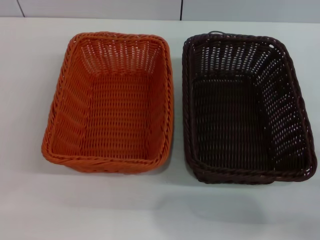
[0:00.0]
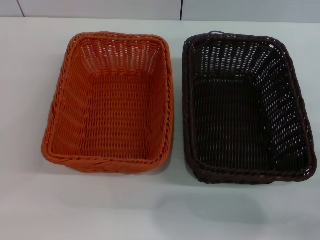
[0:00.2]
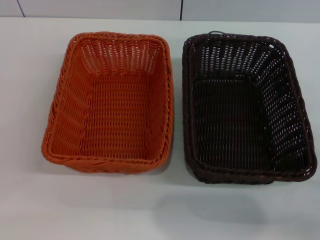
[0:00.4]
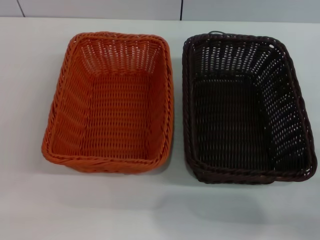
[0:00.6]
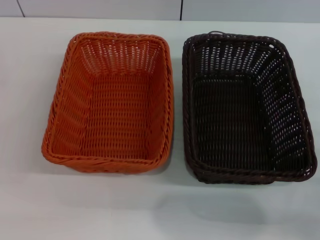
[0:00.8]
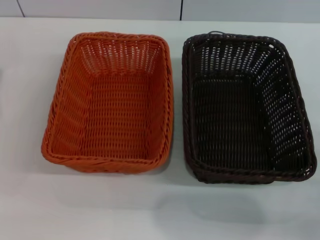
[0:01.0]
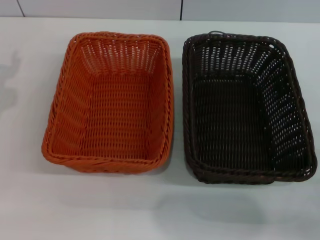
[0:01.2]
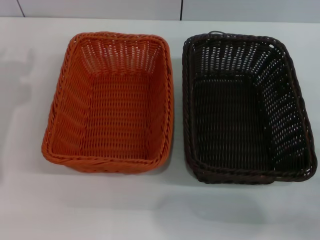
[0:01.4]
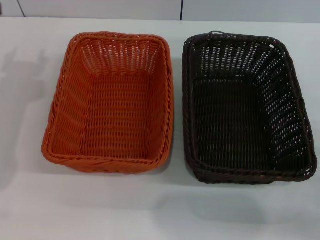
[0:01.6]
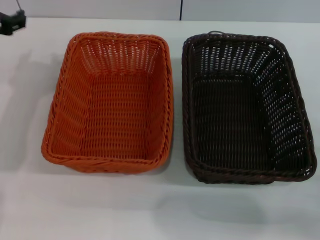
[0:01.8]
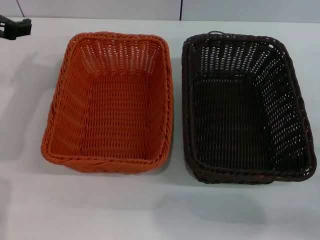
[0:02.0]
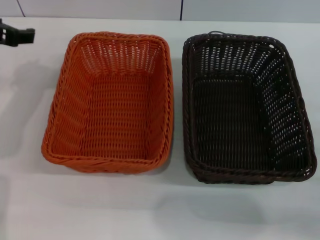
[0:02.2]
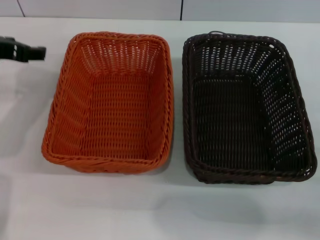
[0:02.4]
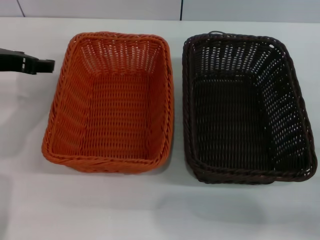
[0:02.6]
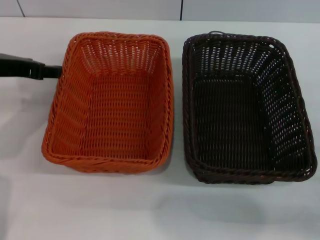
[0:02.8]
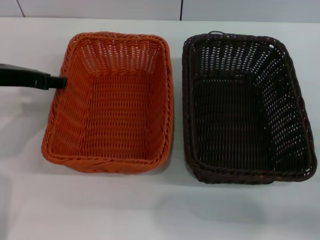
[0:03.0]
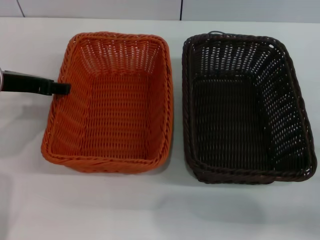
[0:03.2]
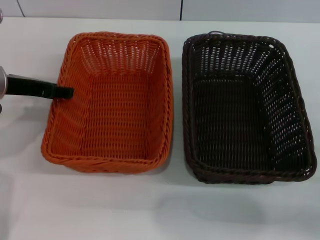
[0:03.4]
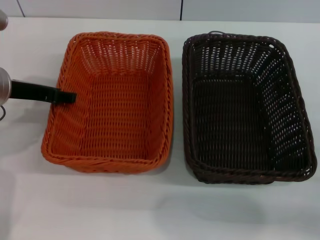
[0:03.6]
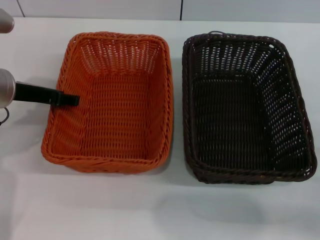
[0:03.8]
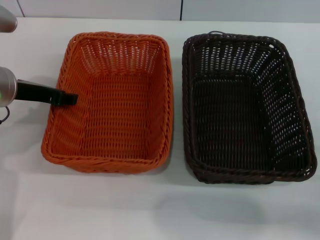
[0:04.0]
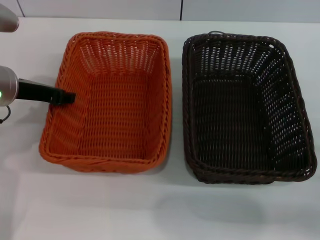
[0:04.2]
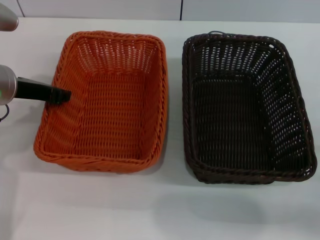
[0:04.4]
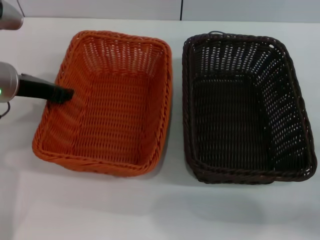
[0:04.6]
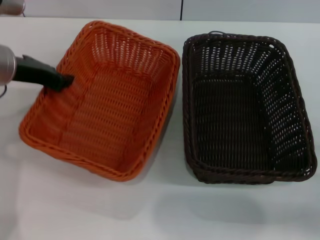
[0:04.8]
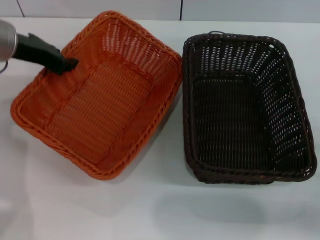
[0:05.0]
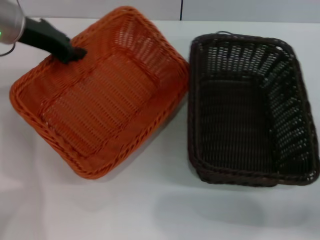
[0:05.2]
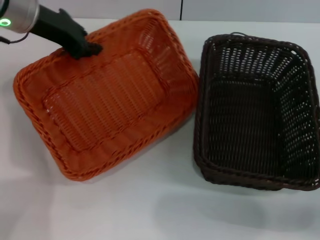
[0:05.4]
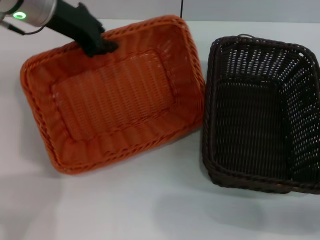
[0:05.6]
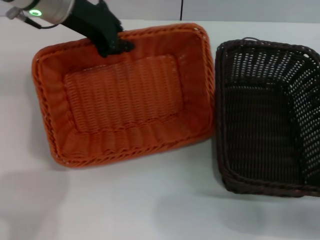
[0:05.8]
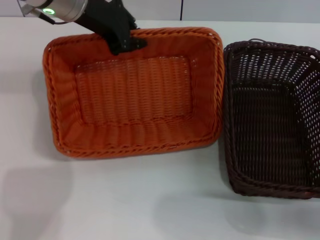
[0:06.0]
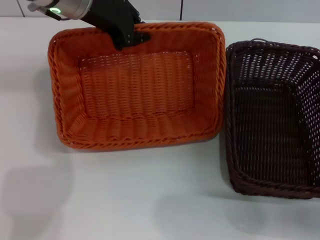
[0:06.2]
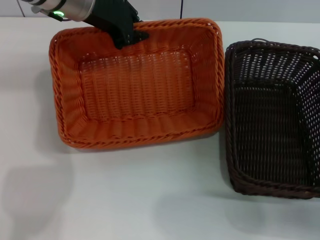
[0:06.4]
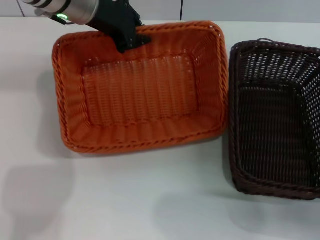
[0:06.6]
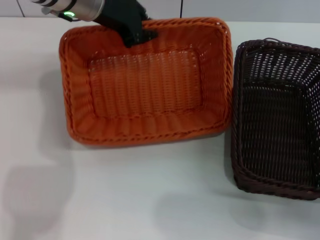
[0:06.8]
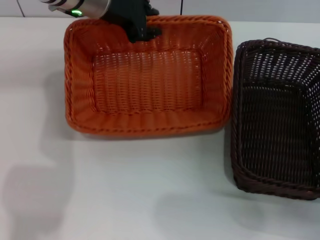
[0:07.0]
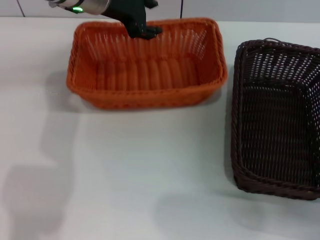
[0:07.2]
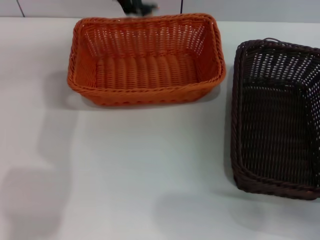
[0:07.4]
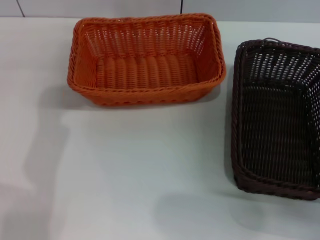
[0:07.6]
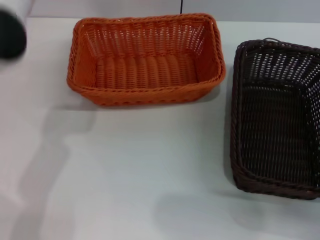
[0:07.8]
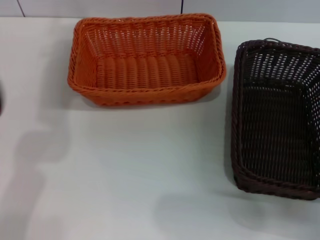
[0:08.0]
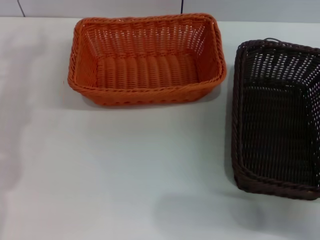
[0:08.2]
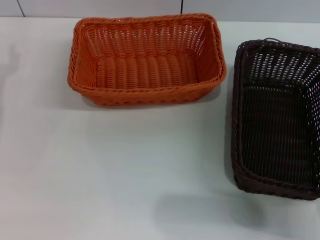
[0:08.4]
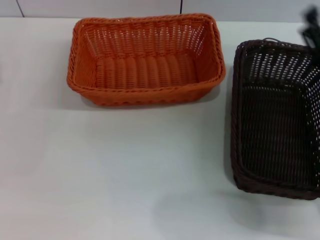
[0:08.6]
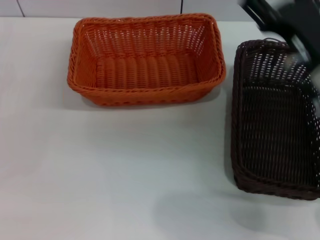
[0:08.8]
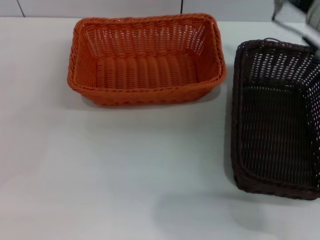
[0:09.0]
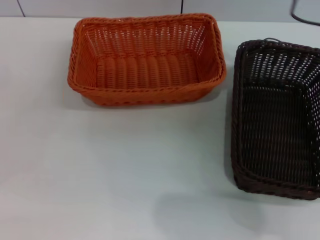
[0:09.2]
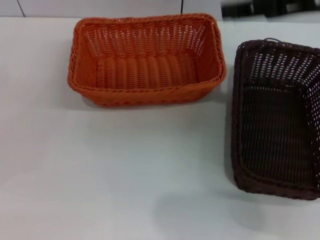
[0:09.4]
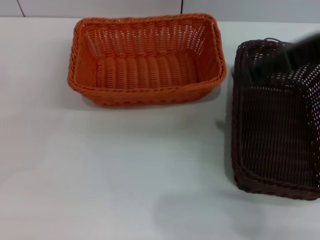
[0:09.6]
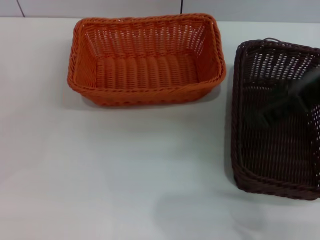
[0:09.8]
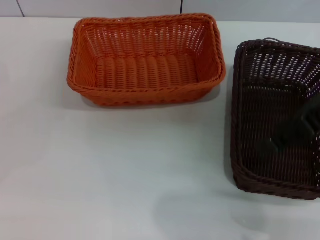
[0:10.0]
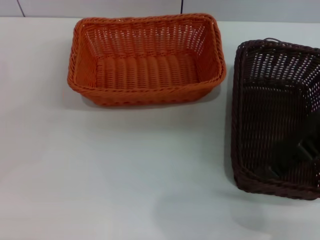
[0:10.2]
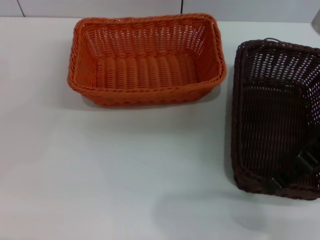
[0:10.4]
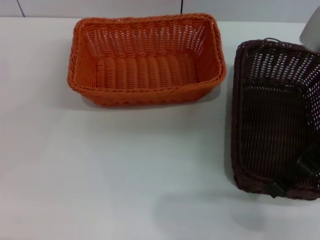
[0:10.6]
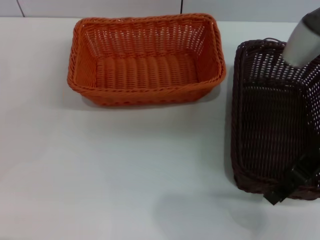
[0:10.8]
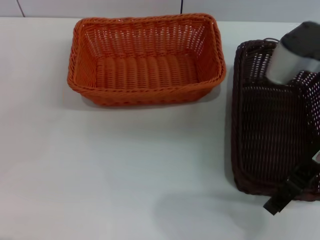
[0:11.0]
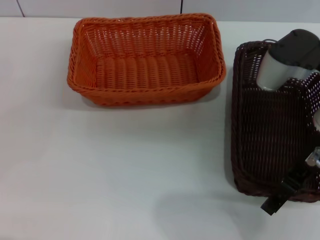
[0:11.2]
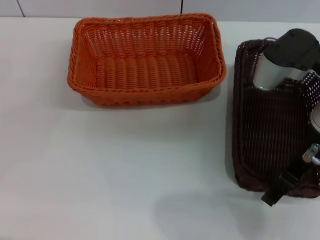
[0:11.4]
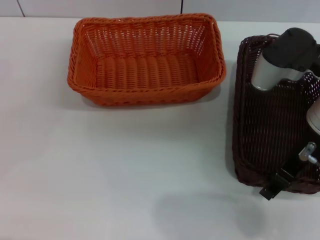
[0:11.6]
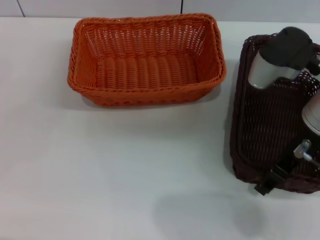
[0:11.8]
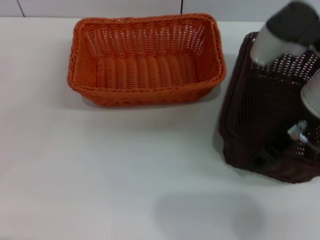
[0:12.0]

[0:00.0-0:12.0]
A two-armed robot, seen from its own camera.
Step, 0:00.0 to 0:04.6: Pick up the light basket with the left gripper.
Step, 0:05.0 to 0:07.2: Place the light basket in the center of view with the left gripper.
0:03.0 to 0:04.4: The left gripper closes its fingers.
0:04.4 to 0:06.0: The left gripper travels forward, to the right and upward by some 15 cm, and closes its fingers.
0:06.0 to 0:07.6: The left gripper opens its fingers.
0:07.6 to 0:09.0: The left gripper moves to the left, backward and downward, about 30 cm. Meanwhile the right gripper shifts roughly 25 cm upward, to the left and forward.
0:10.4 to 0:12.0: The right gripper moves approximately 5 cm, and closes.

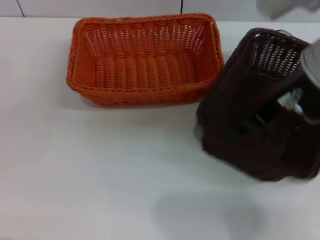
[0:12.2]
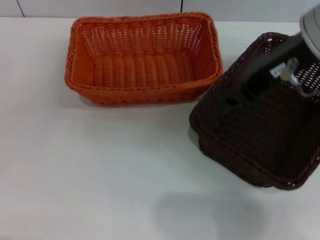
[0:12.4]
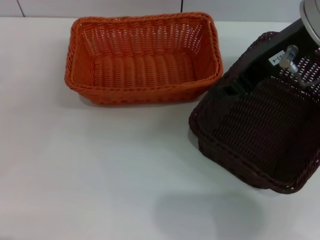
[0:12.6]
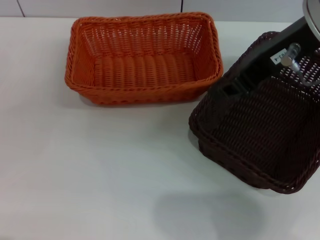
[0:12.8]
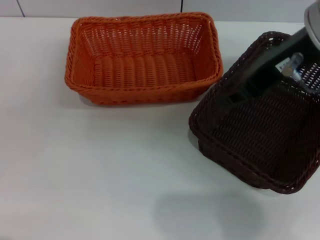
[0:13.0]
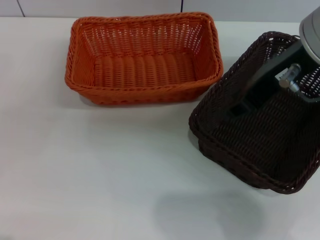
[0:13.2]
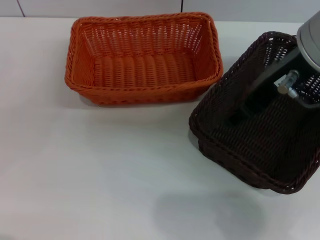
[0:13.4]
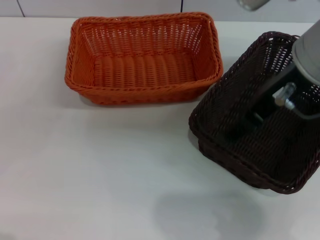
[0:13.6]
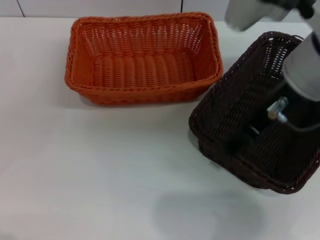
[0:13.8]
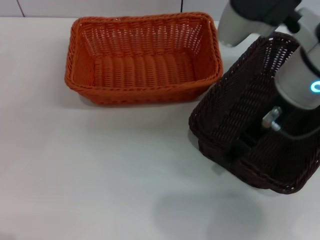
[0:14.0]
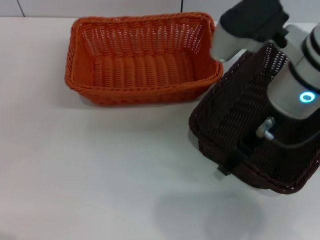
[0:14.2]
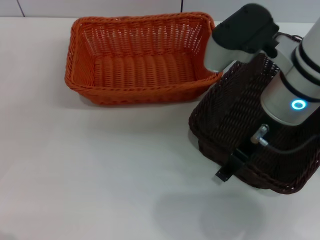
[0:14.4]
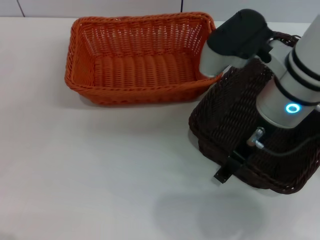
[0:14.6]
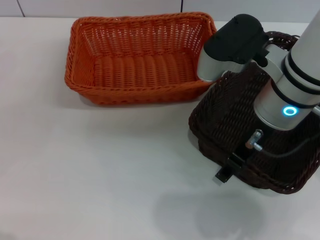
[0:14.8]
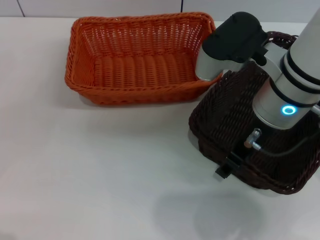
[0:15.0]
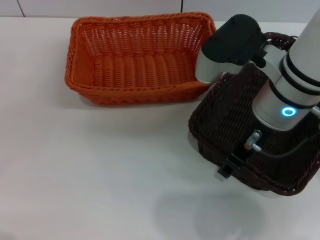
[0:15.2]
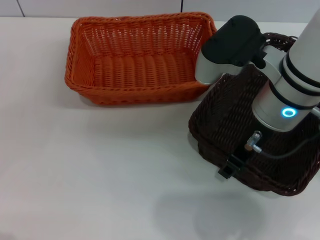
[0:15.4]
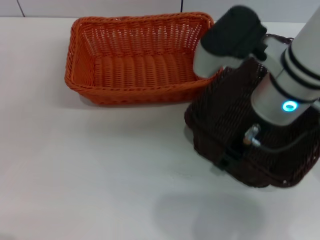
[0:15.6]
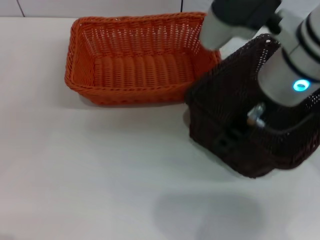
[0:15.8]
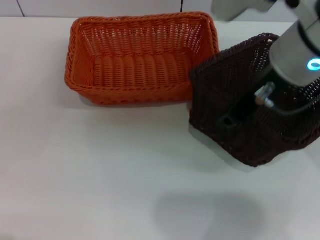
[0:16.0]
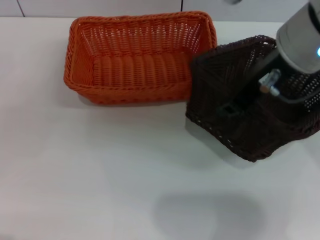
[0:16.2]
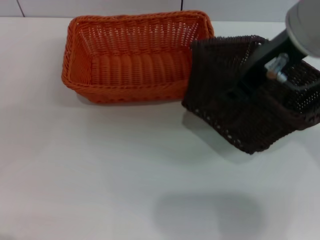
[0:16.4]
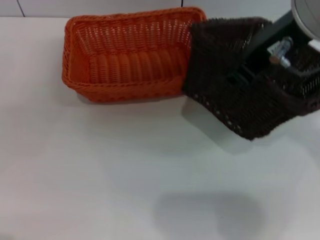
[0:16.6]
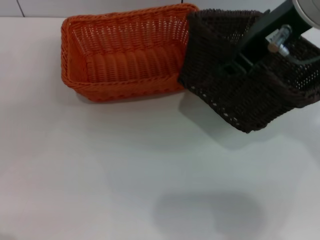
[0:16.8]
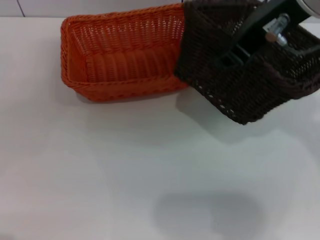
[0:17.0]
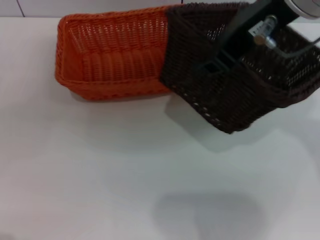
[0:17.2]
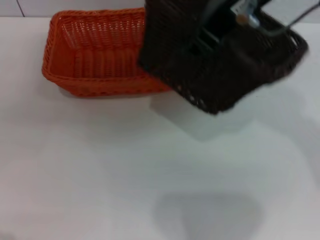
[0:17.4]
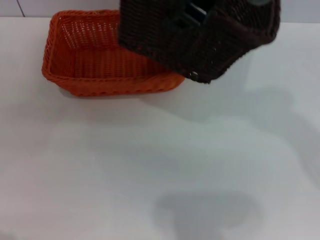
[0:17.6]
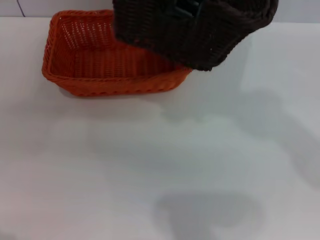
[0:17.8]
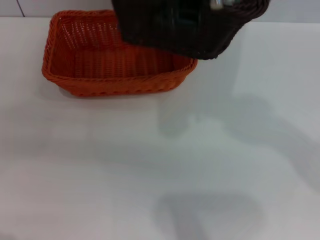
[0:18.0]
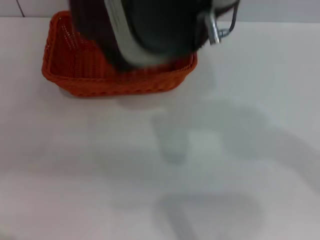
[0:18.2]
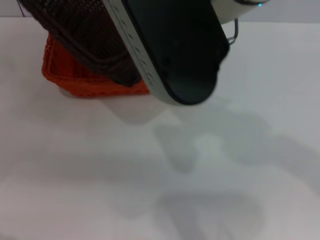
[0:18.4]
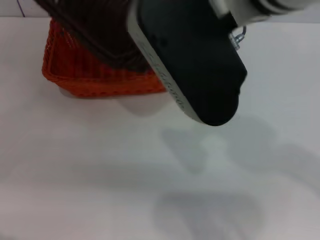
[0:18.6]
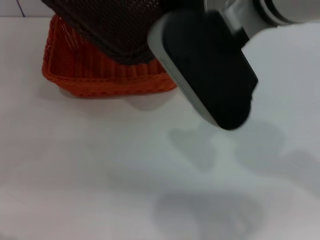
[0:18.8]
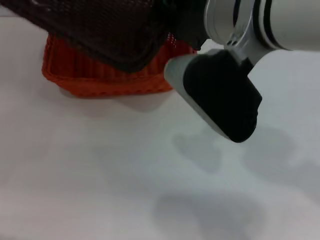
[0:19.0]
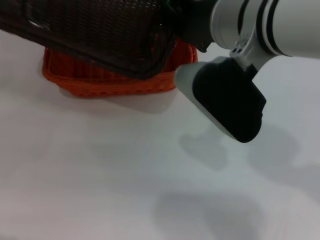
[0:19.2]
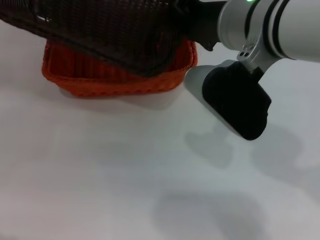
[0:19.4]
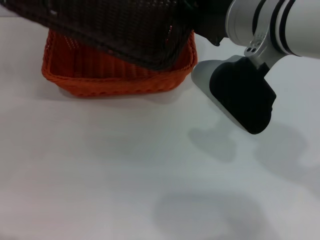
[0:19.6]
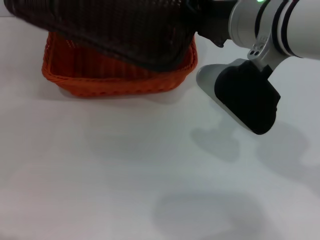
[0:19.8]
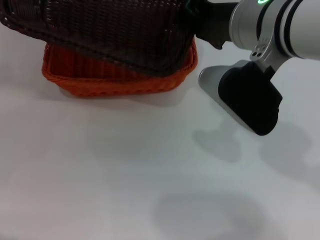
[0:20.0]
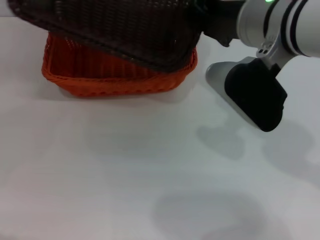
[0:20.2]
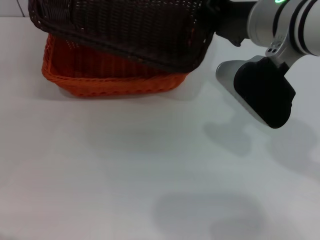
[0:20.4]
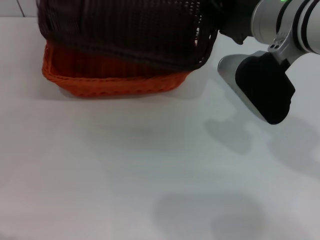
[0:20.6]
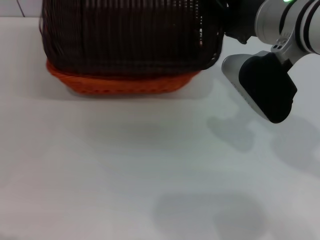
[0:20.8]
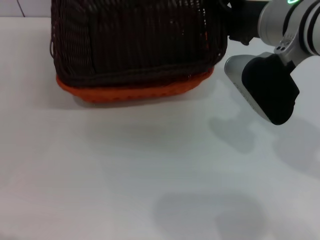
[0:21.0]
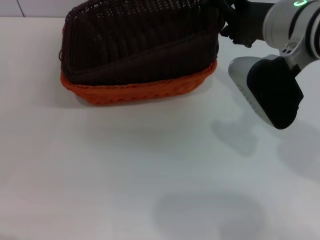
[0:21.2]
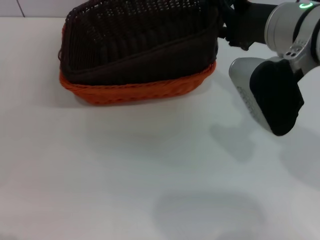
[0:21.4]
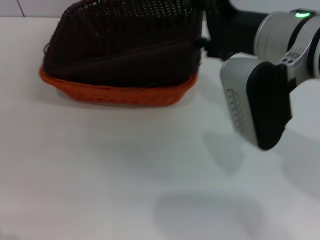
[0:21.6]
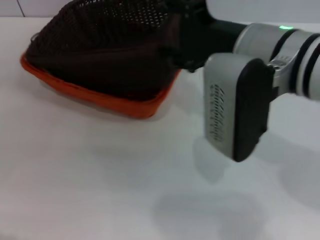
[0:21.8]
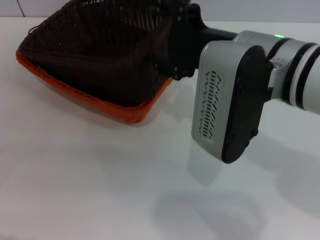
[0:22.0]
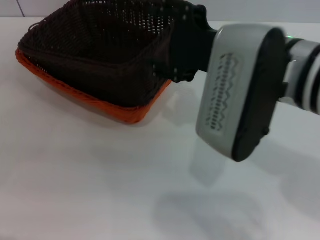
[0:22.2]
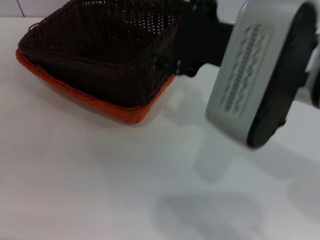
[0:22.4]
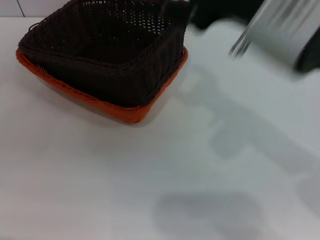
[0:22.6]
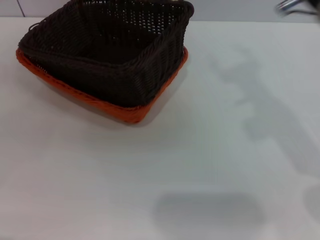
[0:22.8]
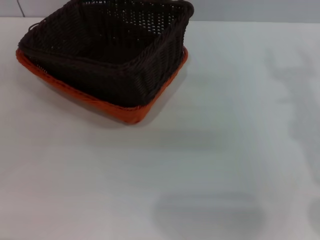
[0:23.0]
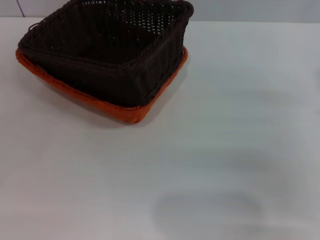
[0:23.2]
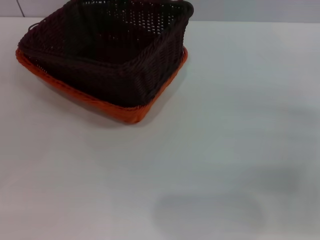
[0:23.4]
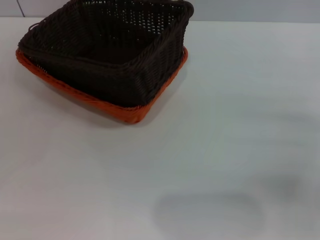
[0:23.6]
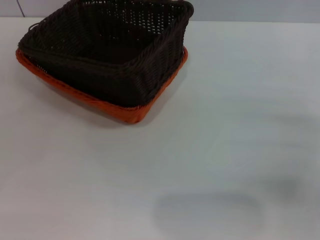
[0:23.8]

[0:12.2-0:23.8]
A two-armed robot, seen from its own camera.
Step, 0:12.2 to 0:15.6: Pick up the dark basket with the right gripper.
Step, 0:15.8 to 0:22.0: Place the dark basket on the light basket with the right gripper.
0:12.2 to 0:13.6: The right gripper closes, then opens again.
0:13.6 to 0:15.0: The right gripper moves downward, roughly 10 cm.
0:15.0 to 0:16.6: The right gripper heads upward, covering approximately 10 cm, and closes up.
0:16.6 to 0:18.0: The right gripper is displaced to the left and upward by roughly 10 cm.
0:18.0 to 0:19.4: The right gripper heads downward, covering approximately 15 cm.
0:19.4 to 0:21.0: The right gripper moves to the right, some 5 cm, and opens.
0:21.0 to 0:22.4: The right gripper travels backward by roughly 10 cm, and opens its fingers.
0:22.4 to 0:23.8: The right gripper is displaced to the right and downward by about 25 cm.
